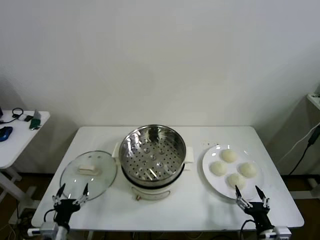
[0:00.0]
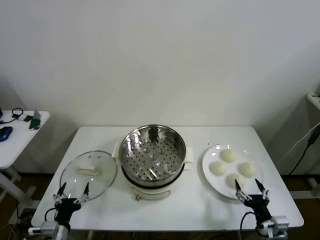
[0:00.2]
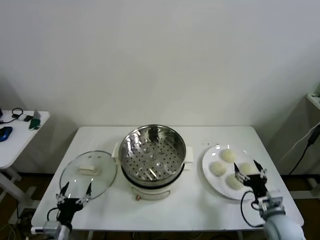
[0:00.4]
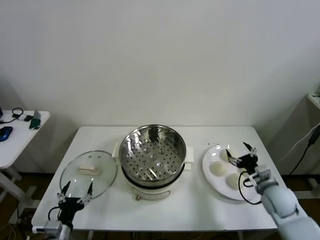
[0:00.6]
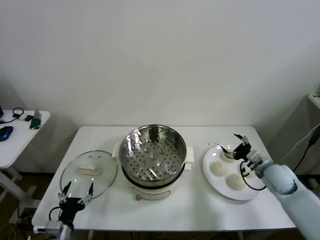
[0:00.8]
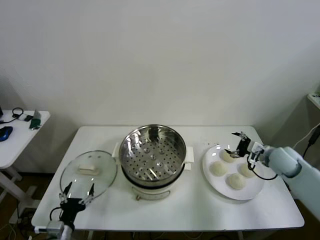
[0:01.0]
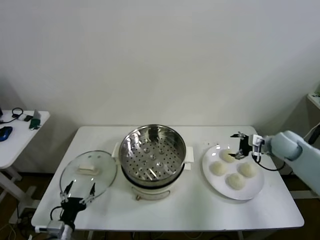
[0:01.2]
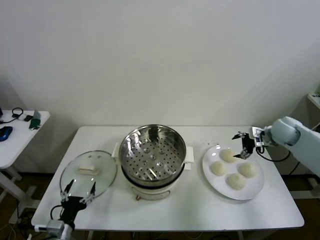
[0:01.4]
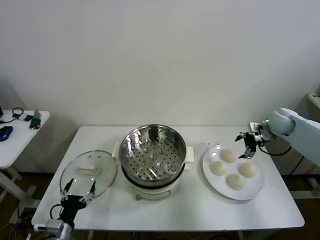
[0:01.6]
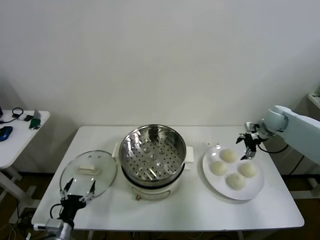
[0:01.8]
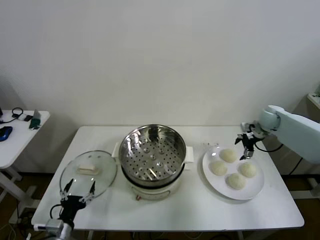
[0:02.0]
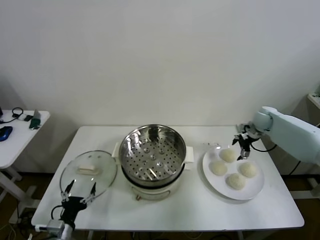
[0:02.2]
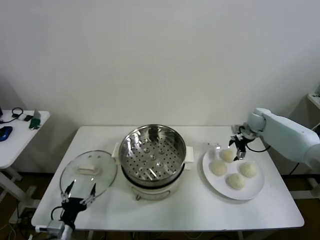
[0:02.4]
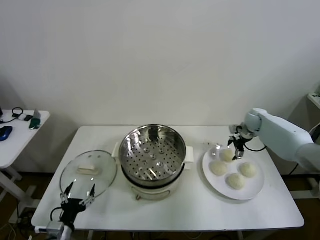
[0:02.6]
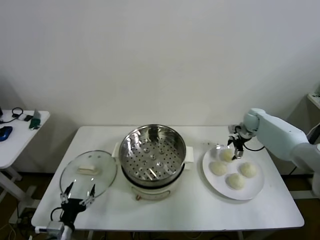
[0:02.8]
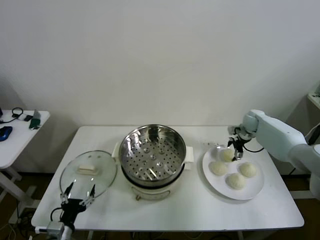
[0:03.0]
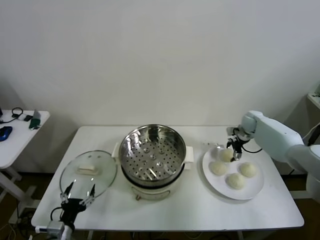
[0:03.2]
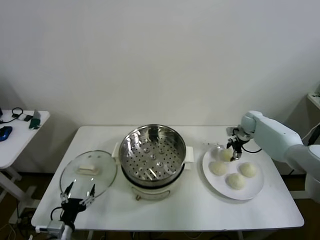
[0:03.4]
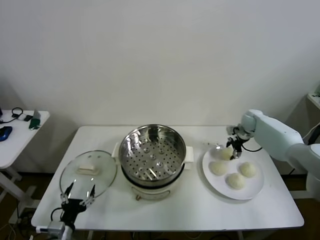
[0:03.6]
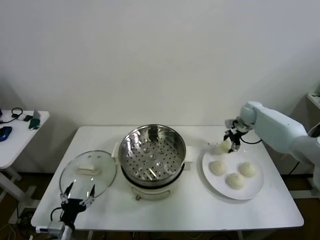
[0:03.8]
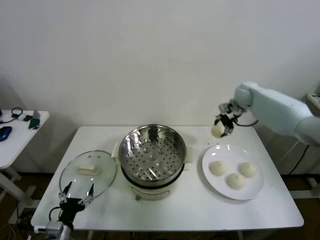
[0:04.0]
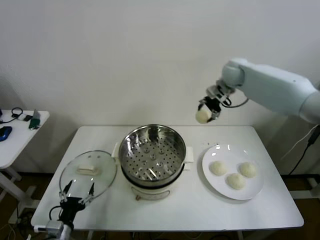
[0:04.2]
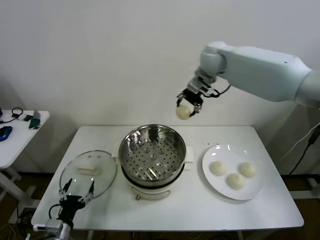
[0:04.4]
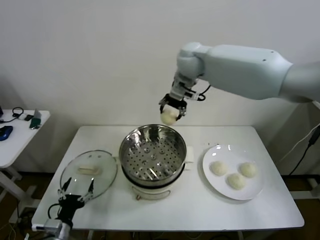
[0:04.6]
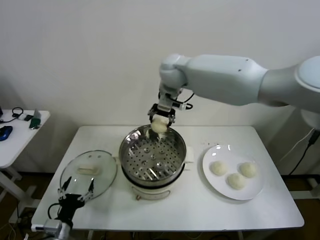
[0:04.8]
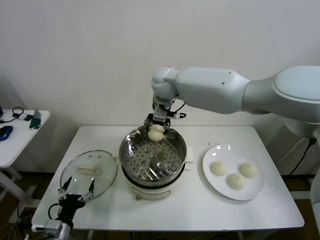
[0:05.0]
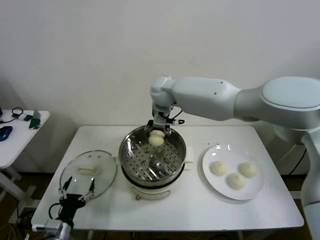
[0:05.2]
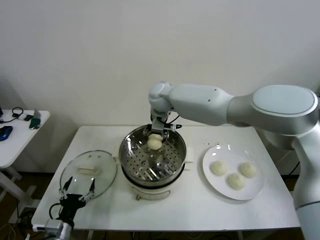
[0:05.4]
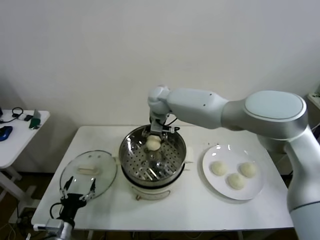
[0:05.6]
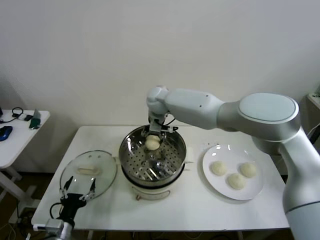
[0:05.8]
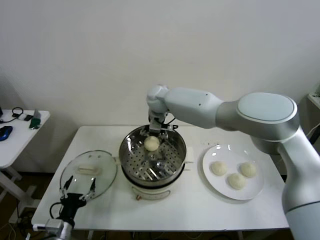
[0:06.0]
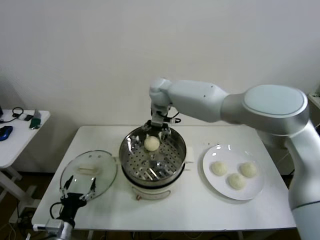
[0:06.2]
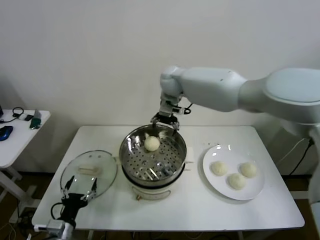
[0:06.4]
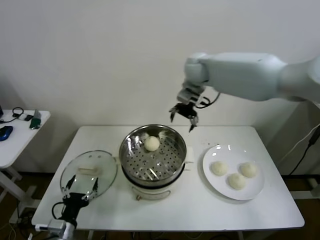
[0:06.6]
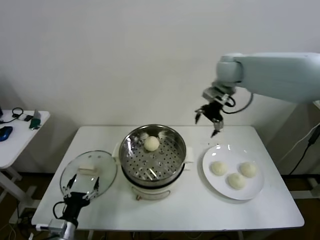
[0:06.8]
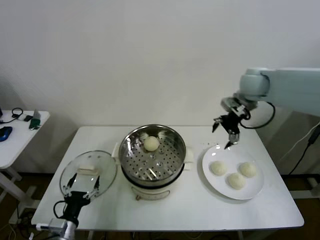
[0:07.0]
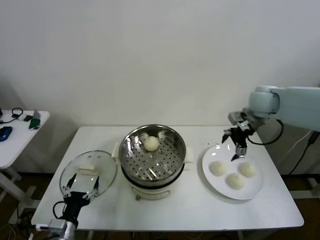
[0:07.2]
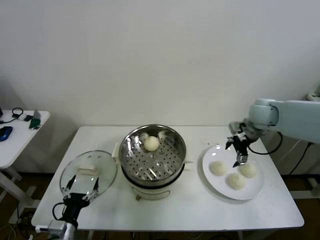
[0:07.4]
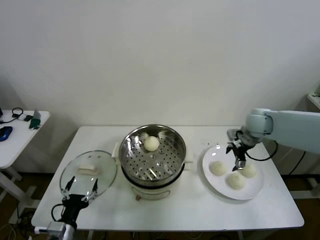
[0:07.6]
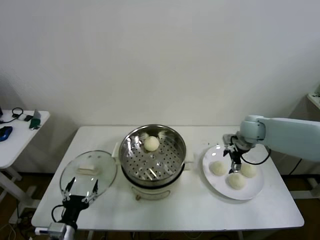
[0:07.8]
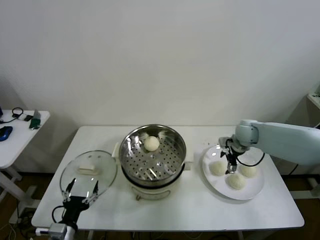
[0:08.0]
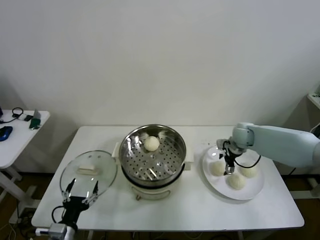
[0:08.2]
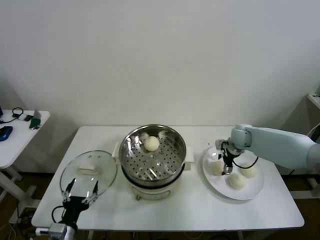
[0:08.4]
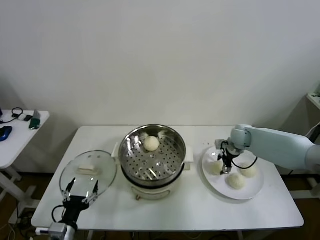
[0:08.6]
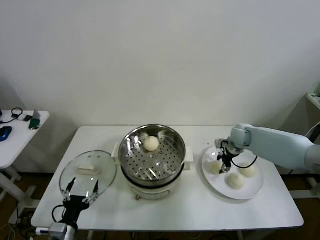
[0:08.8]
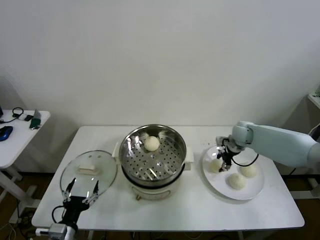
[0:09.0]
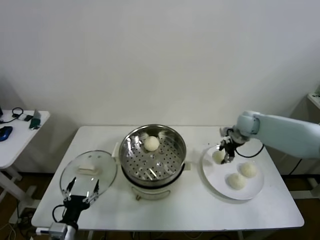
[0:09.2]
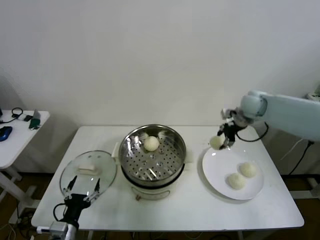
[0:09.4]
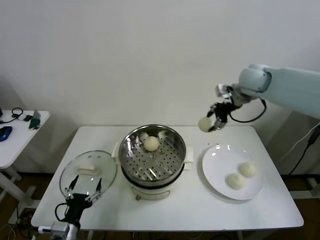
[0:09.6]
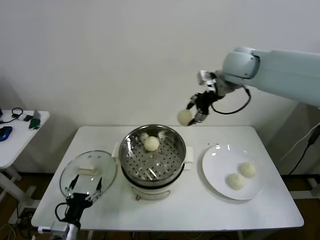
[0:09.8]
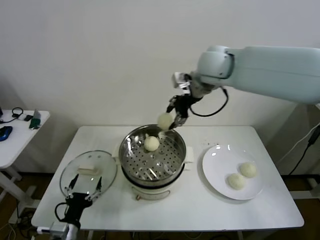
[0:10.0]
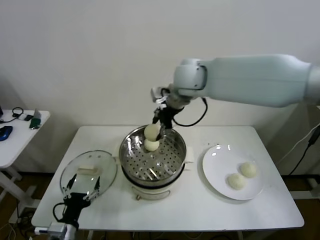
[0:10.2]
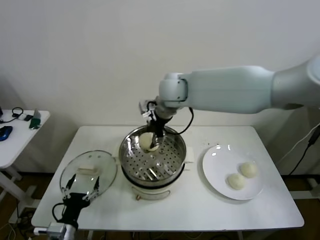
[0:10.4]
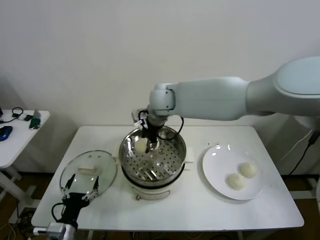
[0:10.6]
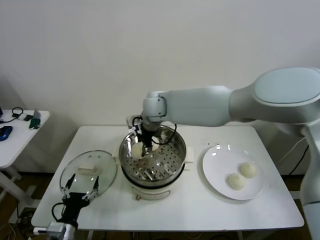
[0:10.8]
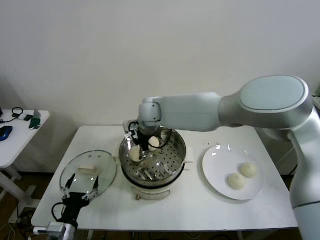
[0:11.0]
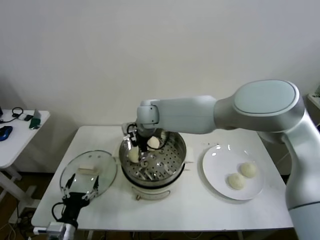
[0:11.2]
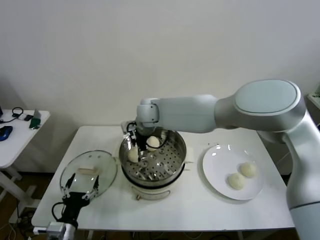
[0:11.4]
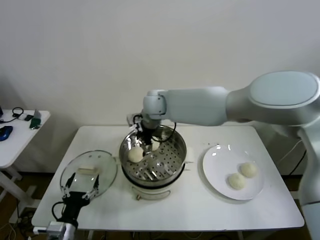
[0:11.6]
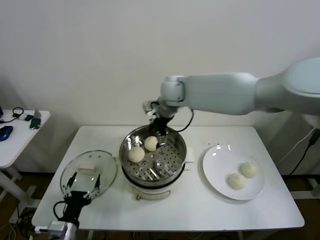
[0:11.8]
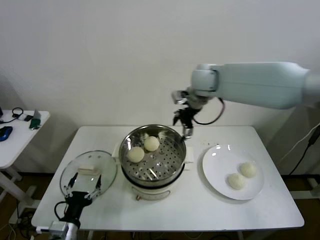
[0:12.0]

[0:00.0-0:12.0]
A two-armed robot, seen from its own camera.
Step, 0:00.0 to 0:03.2: Grasp the baozi in the plate with right gripper.
Step, 0:03.4 to 0:06.0: Place the baozi on the steamer with right gripper.
Step, 0:06.2 to 0:08.8: Grasp the baozi in the plate with right gripper.
Step, 0:09.0 to 0:11.2: Place the baozi on the steamer with right gripper.
0:01.6 to 0:03.0: The right gripper is displaced downward and forward by approximately 10 cm.
0:03.0 to 0:04.4: The right gripper goes about 40 cm upward and to the left, and closes its fingers.
0:04.4 to 0:06.0: The right gripper heads downward and to the left, covering about 20 cm, and opens up.
0:06.0 to 0:07.6: The right gripper is displaced to the right by approximately 35 cm.
0:07.6 to 0:09.0: The right gripper travels downward by some 5 cm, and closes its fingers.
0:09.0 to 0:10.4: The right gripper shifts approximately 35 cm to the left and upward.
0:10.4 to 0:12.0: The right gripper heads to the right, covering approximately 15 cm, and opens its fingers.

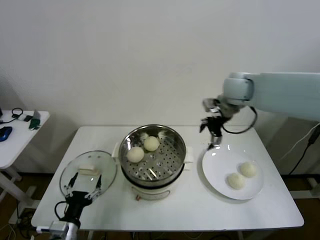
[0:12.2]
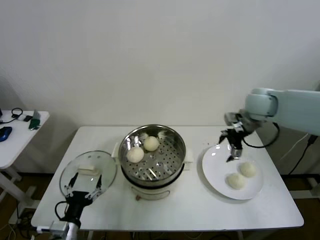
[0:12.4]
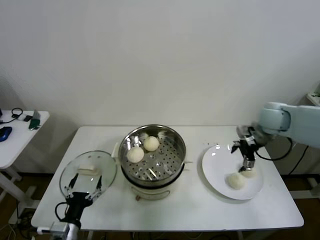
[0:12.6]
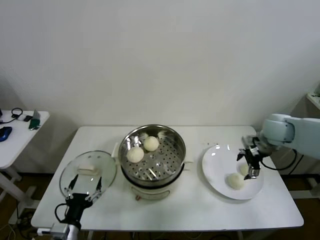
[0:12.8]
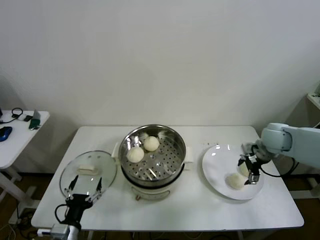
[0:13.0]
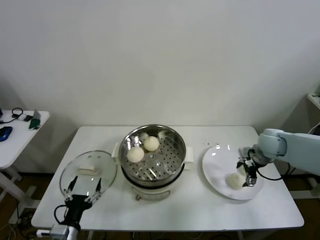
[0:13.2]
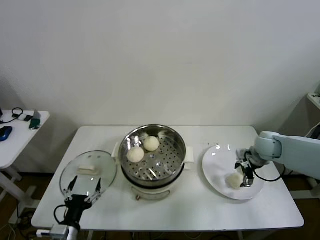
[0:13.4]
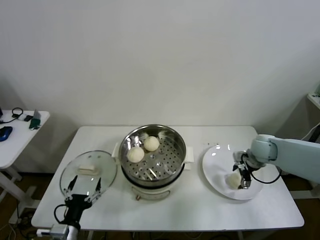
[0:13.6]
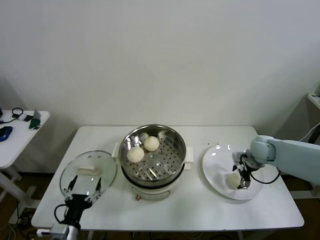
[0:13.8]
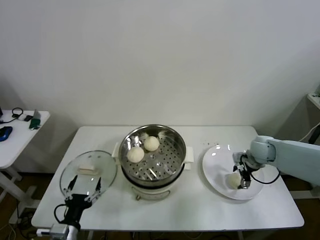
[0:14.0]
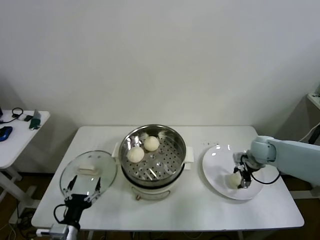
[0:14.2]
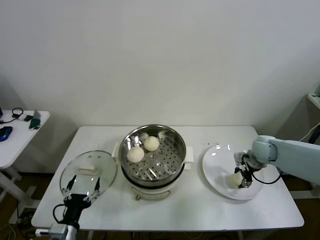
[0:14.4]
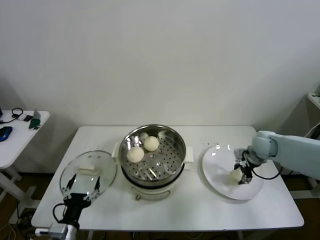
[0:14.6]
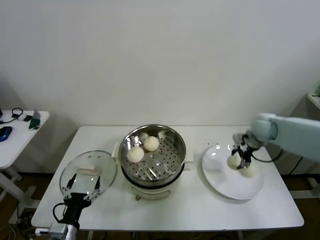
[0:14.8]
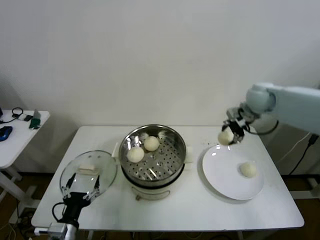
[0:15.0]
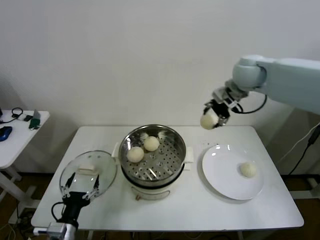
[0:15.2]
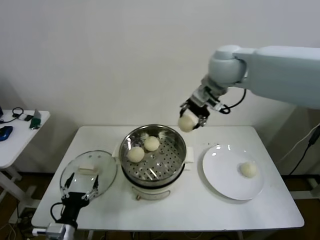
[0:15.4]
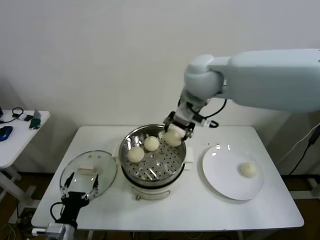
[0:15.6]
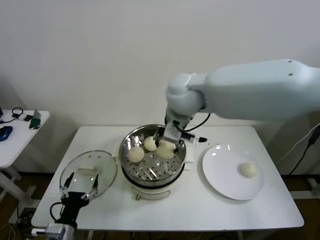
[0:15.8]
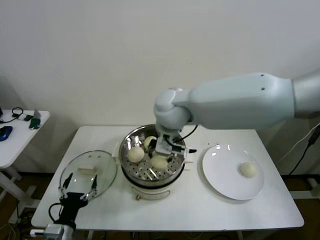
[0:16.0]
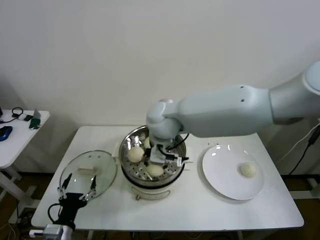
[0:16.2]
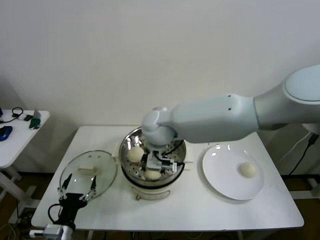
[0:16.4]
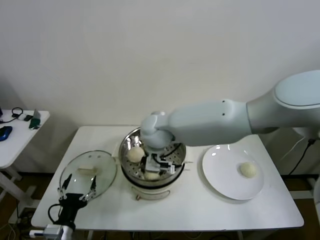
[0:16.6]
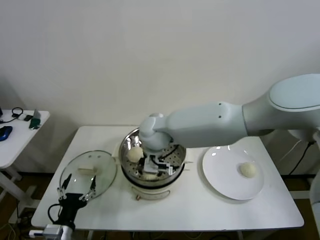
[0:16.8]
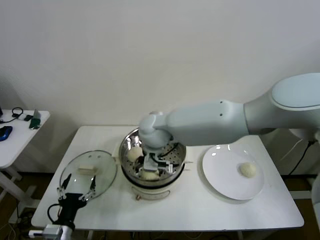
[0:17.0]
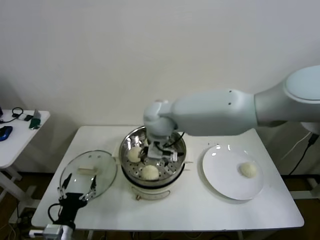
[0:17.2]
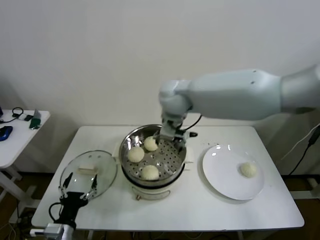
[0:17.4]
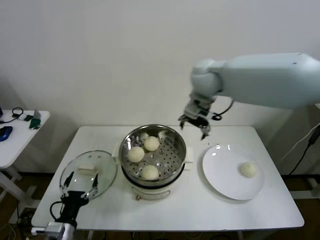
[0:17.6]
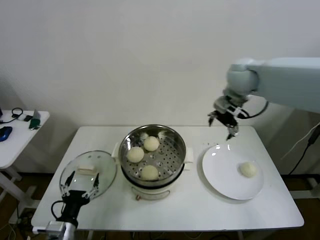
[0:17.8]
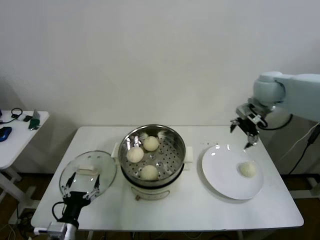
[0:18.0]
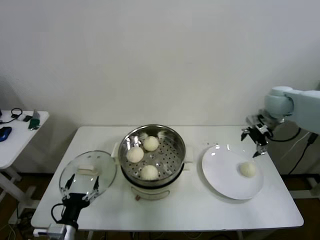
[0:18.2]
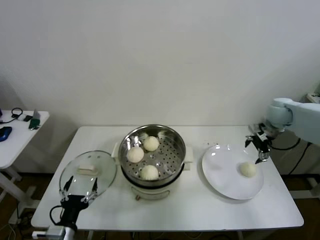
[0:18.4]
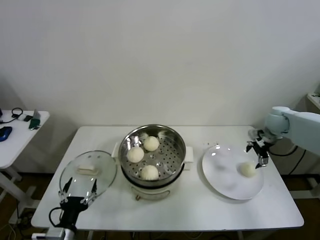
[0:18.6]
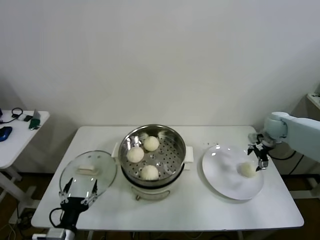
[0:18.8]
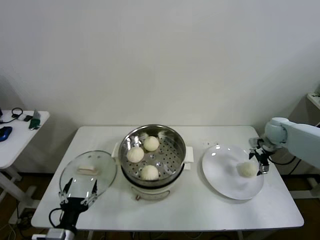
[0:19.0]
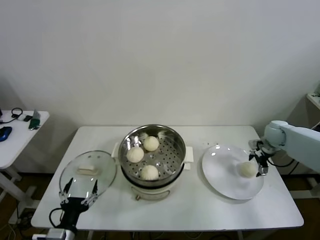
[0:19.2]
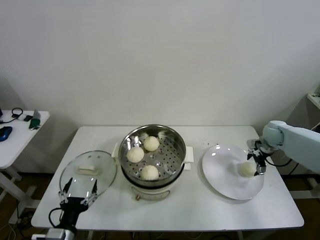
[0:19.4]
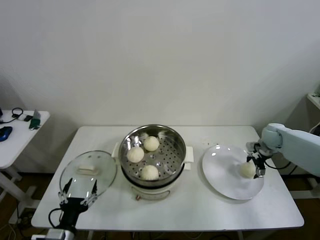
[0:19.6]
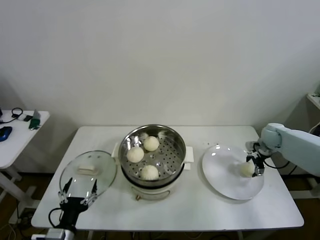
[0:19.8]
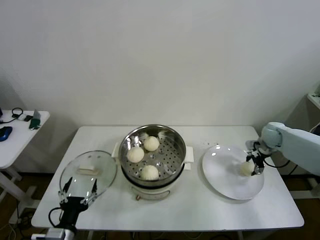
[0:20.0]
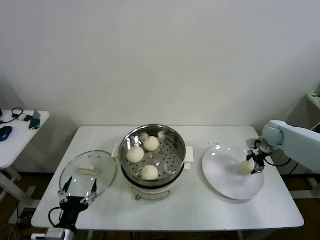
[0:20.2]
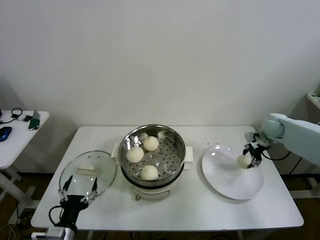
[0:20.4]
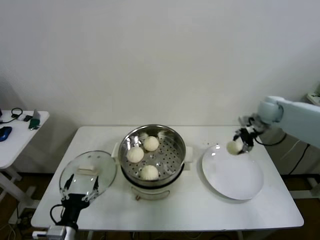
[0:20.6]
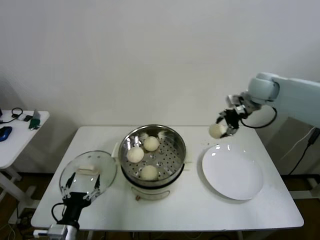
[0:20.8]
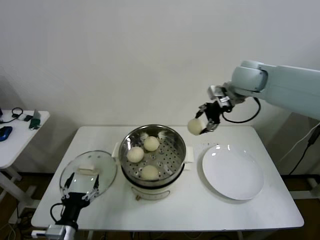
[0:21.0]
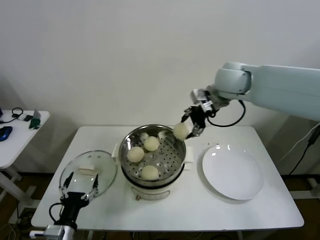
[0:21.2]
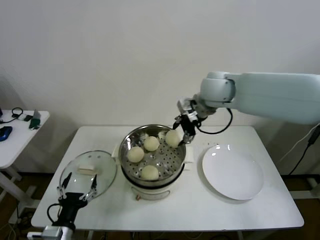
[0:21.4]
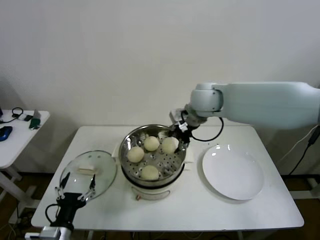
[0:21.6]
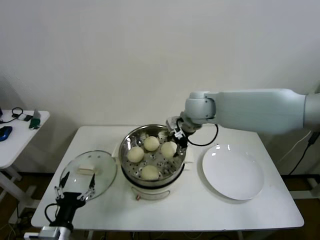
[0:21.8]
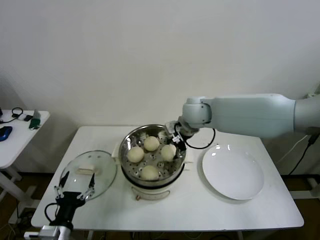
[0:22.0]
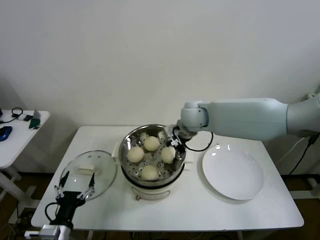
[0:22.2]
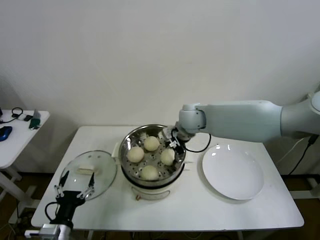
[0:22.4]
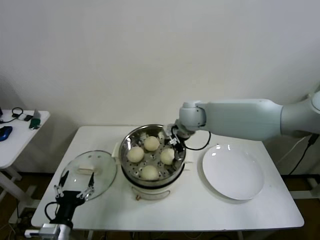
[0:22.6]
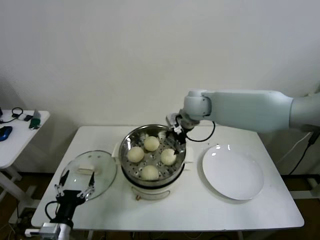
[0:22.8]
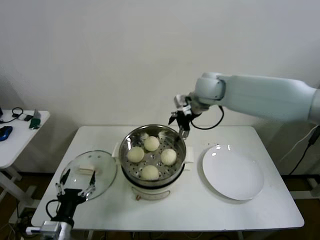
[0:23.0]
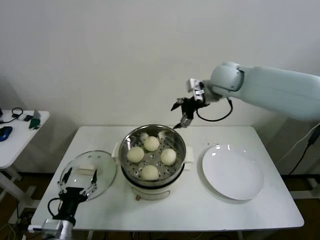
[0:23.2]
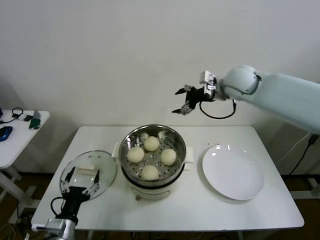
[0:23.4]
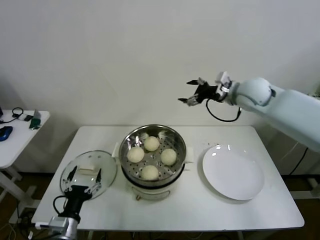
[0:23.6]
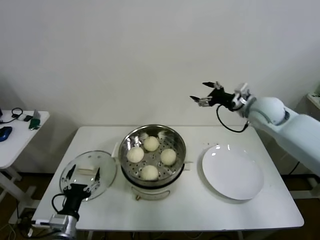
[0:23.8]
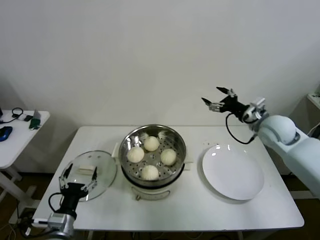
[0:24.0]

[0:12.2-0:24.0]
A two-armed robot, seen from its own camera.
Step, 0:12.2 to 0:14.2: Grasp the baozi in the plate with right gripper.
Step, 0:14.4 to 0:16.8: Place the baozi on the steamer with right gripper.
Step, 0:17.2 to 0:20.0: Grasp the baozi in the plate with right gripper.
Step, 0:20.2 to 0:22.6: Place the baozi on the steamer with right gripper.
0:12.2 to 0:13.6: The right gripper travels downward and to the right by roughly 25 cm.
0:13.6 to 0:15.2: The right gripper moves upward and to the left, approximately 30 cm, and closes its fingers.
0:15.2 to 0:16.6: The right gripper heads to the left and downward, covering about 30 cm.
0:16.6 to 0:18.2: The right gripper moves to the right, approximately 40 cm, and opens up.
0:18.2 to 0:19.6: The right gripper goes about 15 cm downward.
0:19.6 to 0:21.0: The right gripper shifts roughly 35 cm upward and to the left, and closes its fingers.
0:21.0 to 0:22.6: The right gripper goes some 20 cm to the left and downward, and opens.
0:22.6 to 0:24.0: The right gripper is displaced to the right by some 25 cm.
